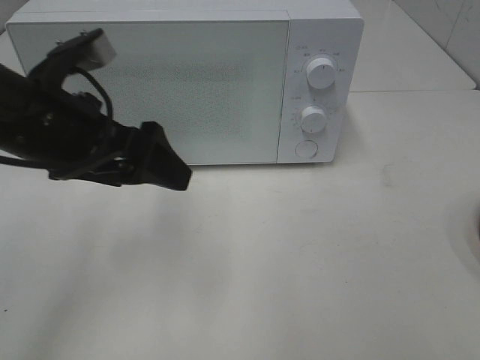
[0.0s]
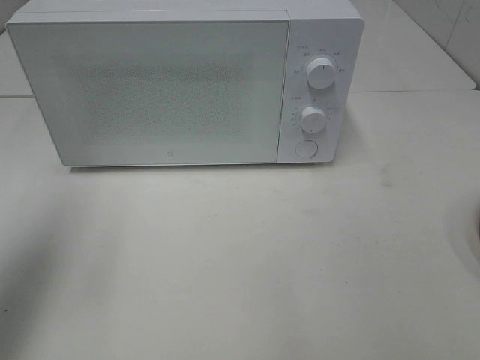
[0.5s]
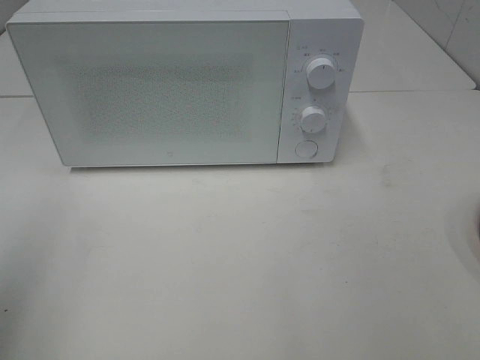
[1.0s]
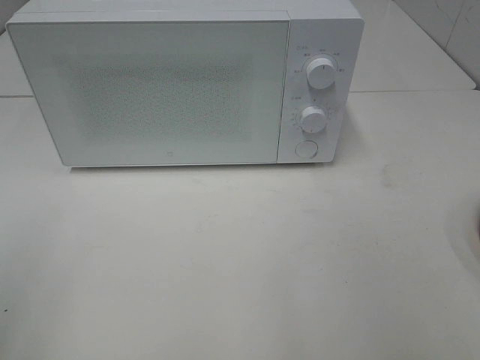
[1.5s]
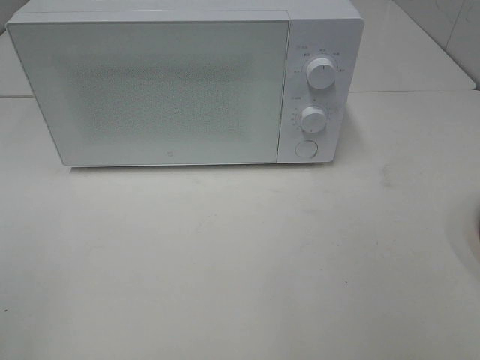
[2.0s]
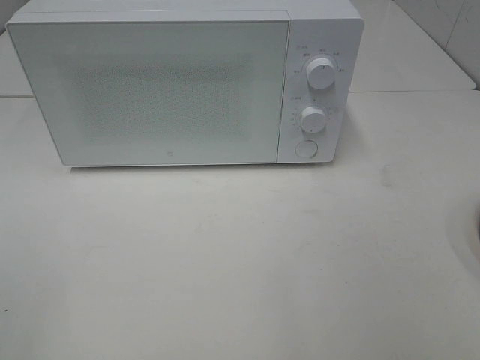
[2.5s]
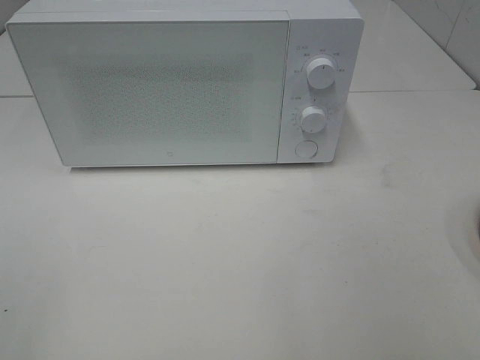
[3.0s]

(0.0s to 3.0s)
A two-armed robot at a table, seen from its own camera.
Task of the whole recording: Heat the burger.
0.0s - 1.5s: The left gripper moves backward and to the left, roughly 25 cm.

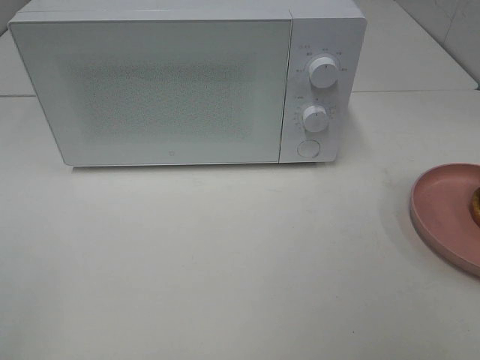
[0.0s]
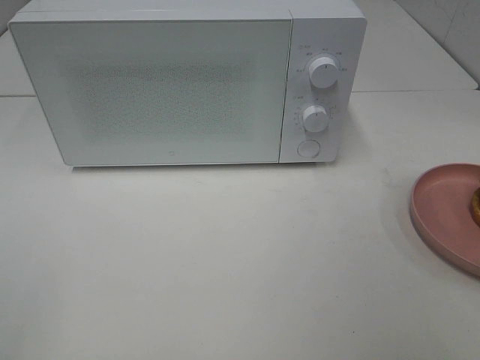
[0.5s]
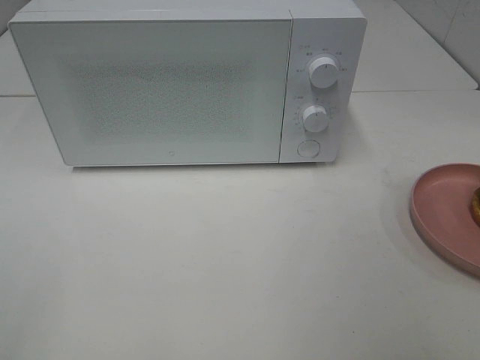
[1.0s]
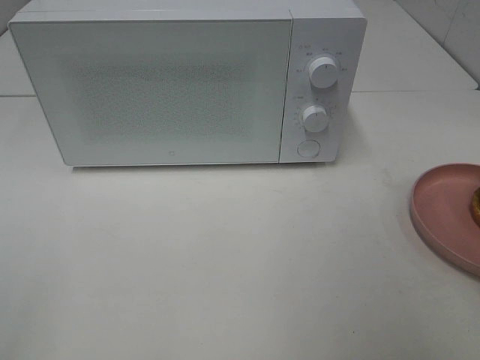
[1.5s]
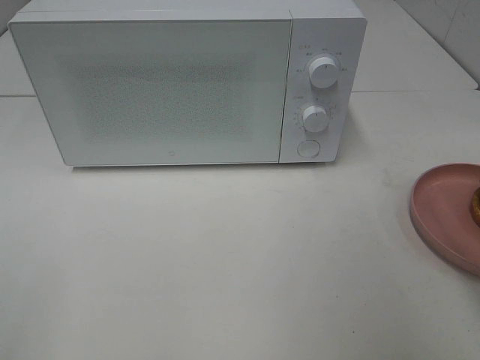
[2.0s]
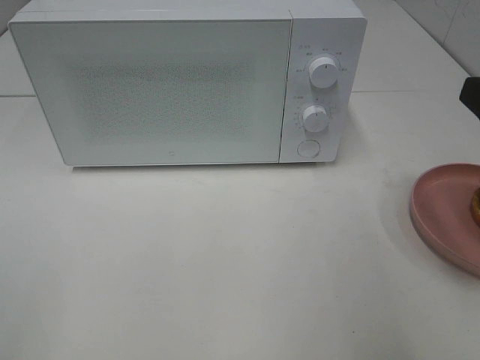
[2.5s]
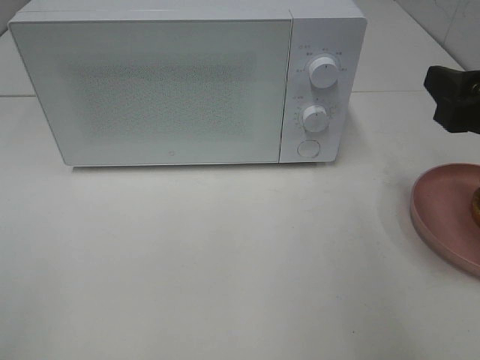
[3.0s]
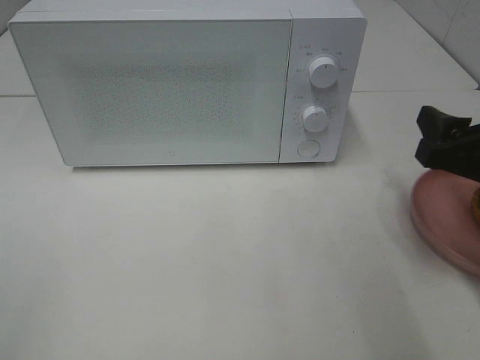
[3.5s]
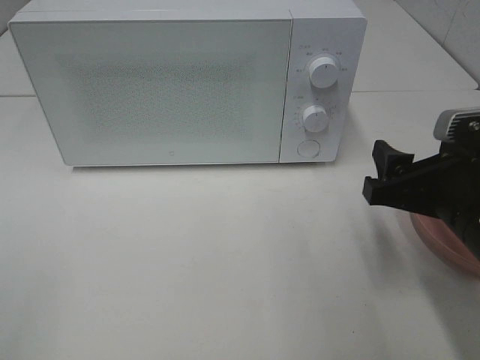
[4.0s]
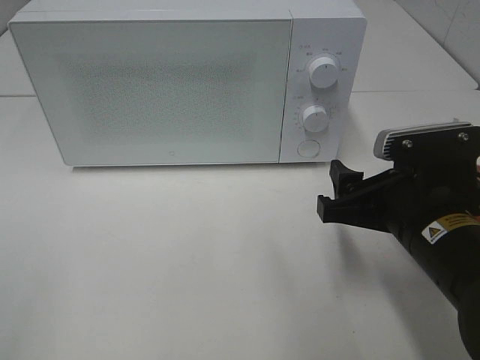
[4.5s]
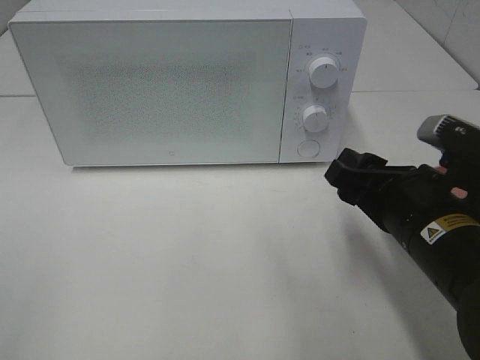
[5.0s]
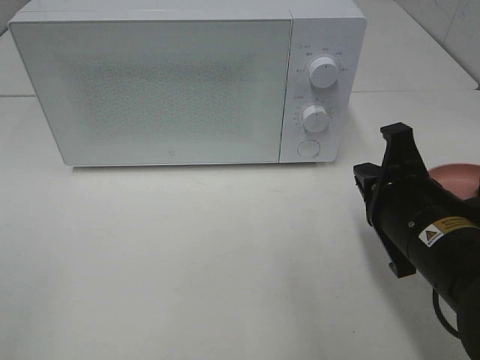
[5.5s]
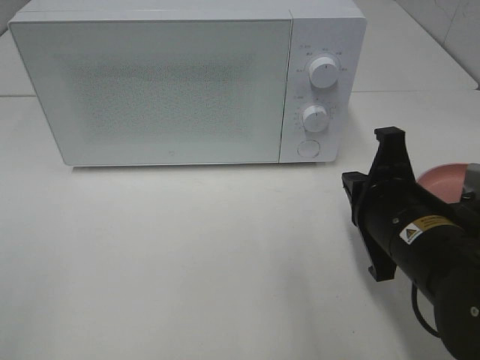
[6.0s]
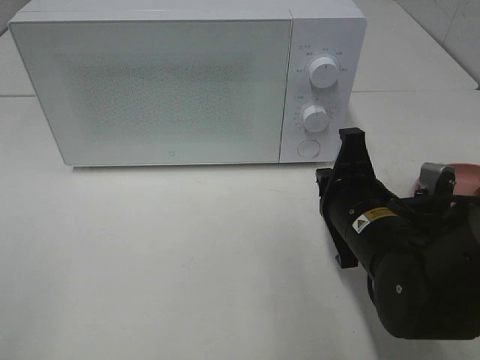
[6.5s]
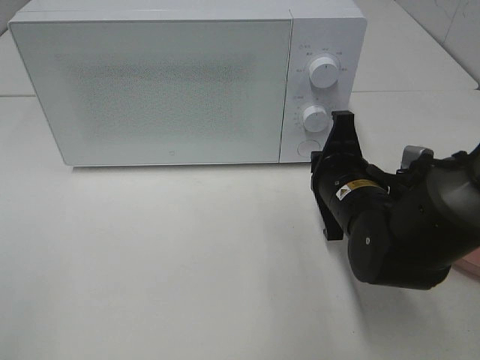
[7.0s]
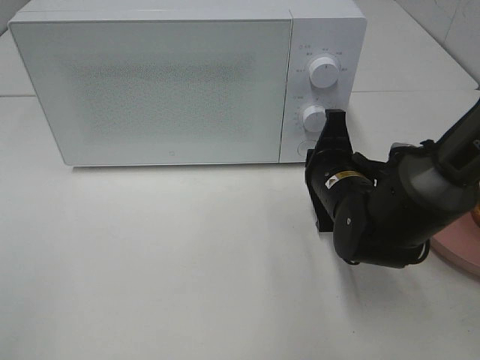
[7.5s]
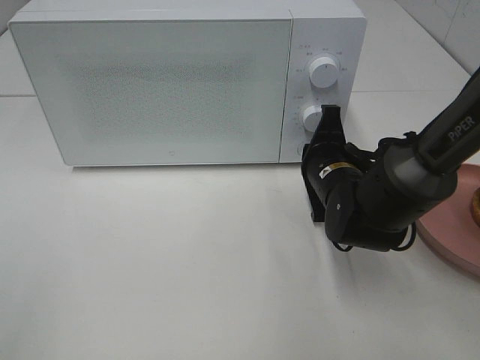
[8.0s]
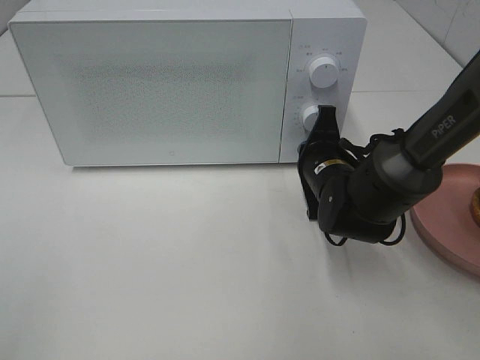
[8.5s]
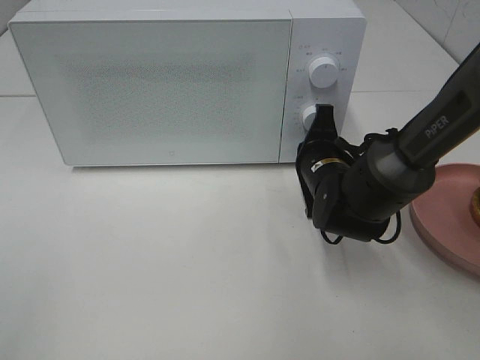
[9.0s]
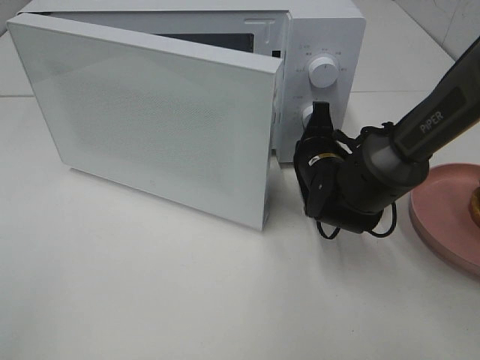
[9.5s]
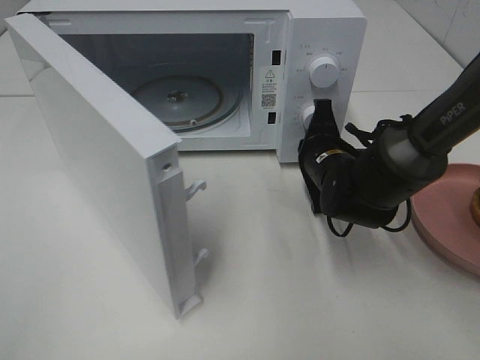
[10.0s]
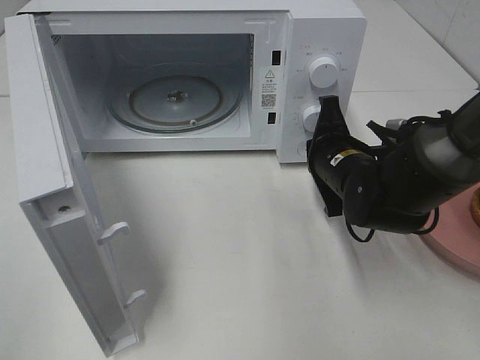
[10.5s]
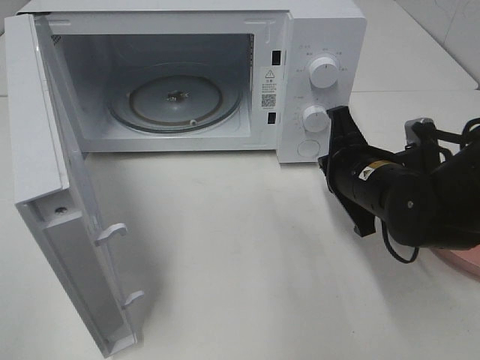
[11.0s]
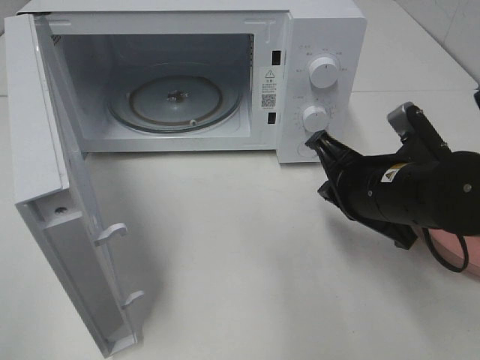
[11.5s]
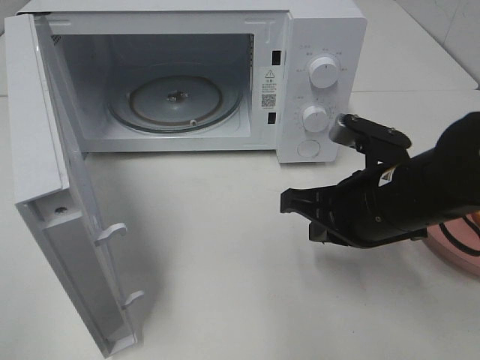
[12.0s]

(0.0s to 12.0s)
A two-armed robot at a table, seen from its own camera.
Task of the whole recording: Heat the burger.
Step, 0.0s - 10.0s: Right hand: press the switch.
2.0s - 4.0s: The right gripper travels downward, forward and to the left by approximately 15 cm.
4.0s - 6.0s: The right gripper shifts about 5 cm to the left, and closes up.
6.0s - 8.0s: The right gripper goes about 15 cm forward and downward.
10.0s - 12.0s: The right gripper shifts approximately 15 cm backward and upward.

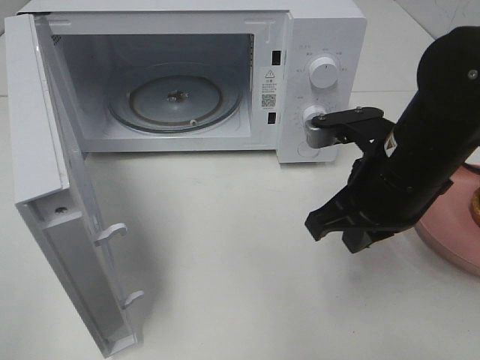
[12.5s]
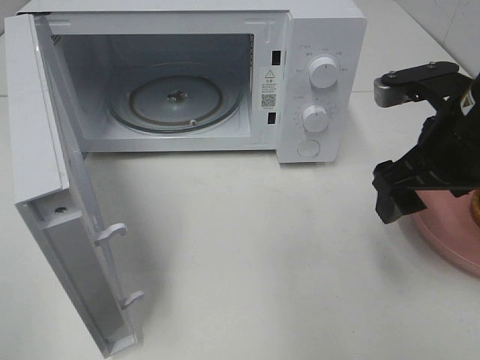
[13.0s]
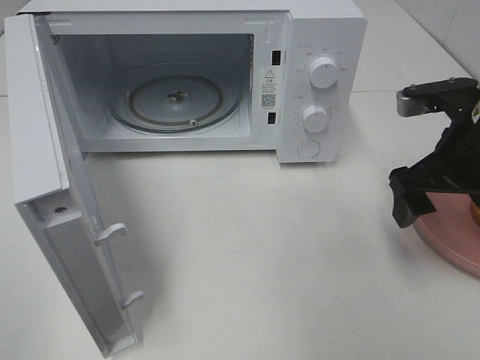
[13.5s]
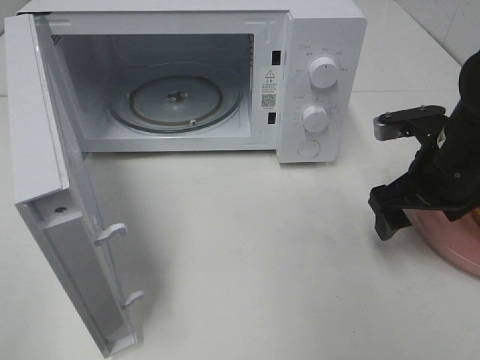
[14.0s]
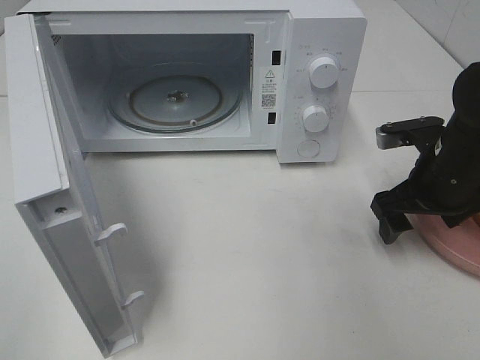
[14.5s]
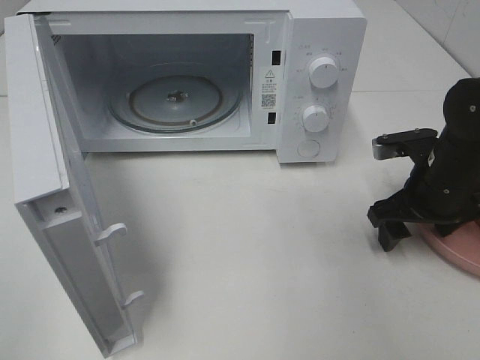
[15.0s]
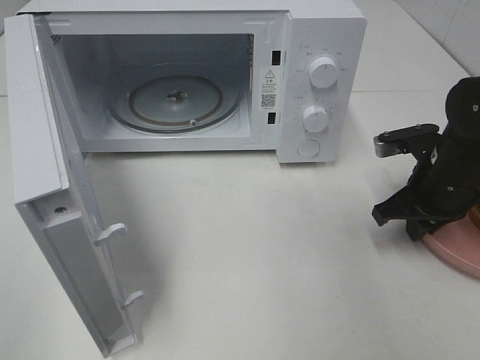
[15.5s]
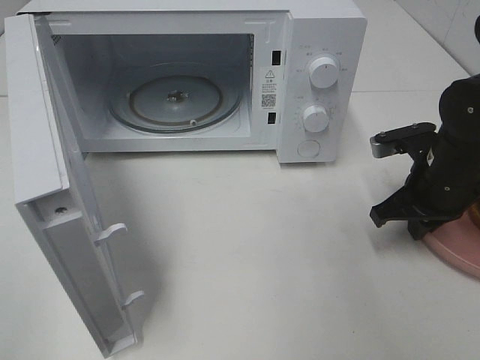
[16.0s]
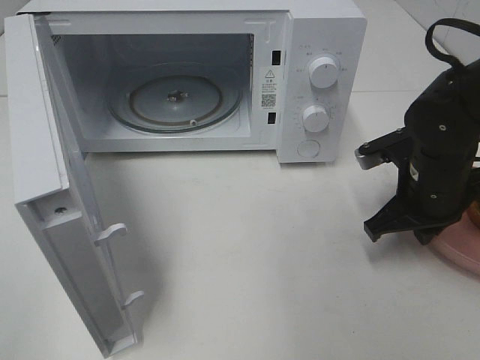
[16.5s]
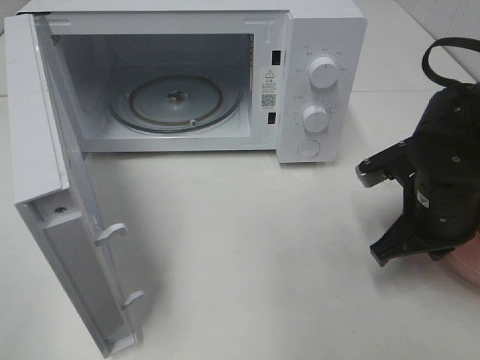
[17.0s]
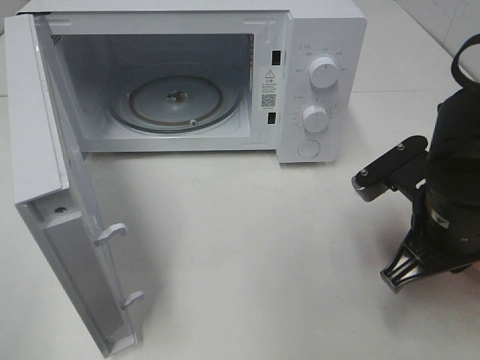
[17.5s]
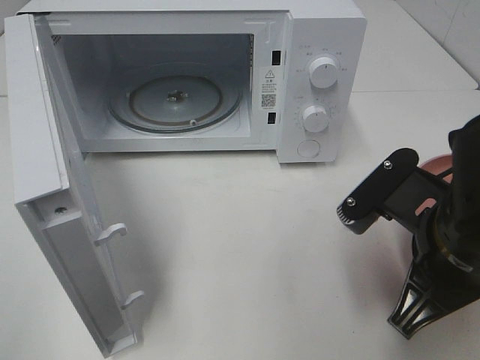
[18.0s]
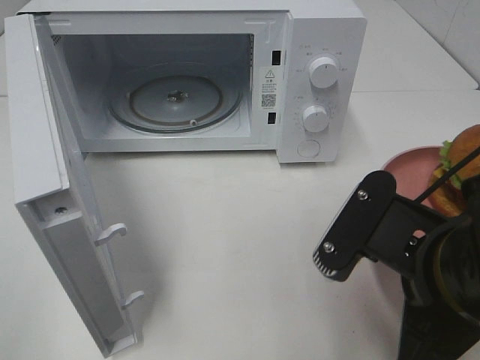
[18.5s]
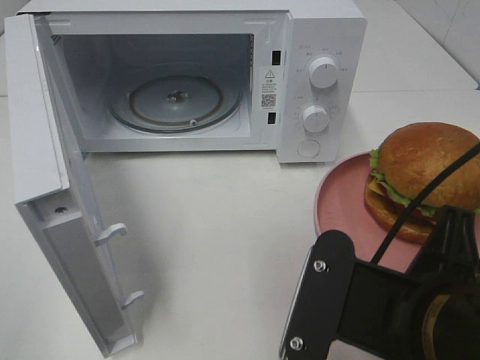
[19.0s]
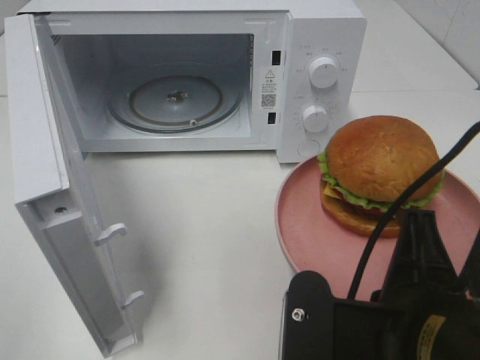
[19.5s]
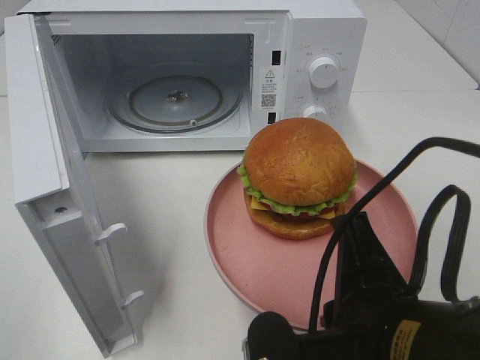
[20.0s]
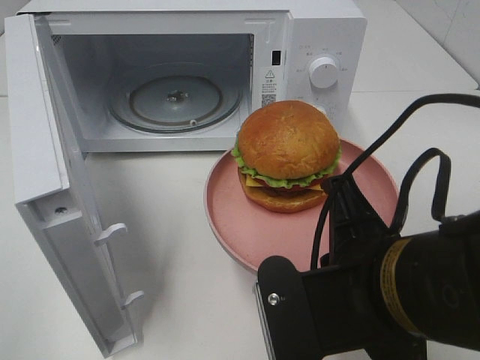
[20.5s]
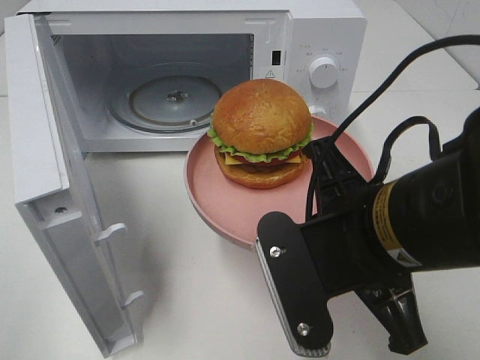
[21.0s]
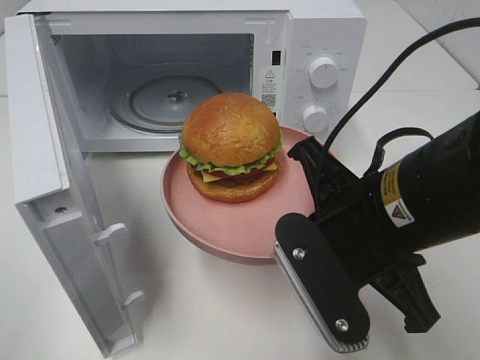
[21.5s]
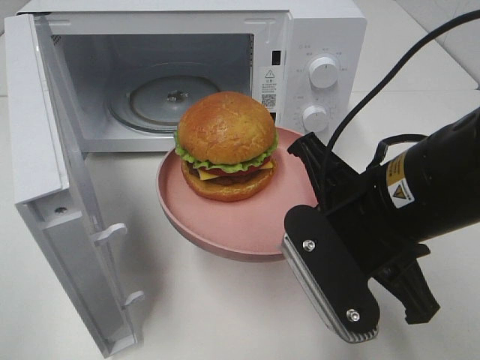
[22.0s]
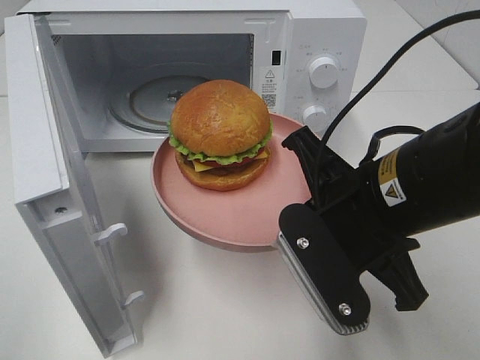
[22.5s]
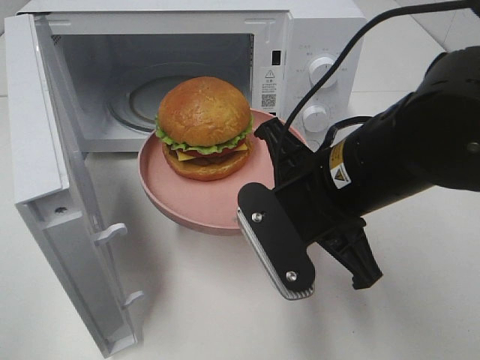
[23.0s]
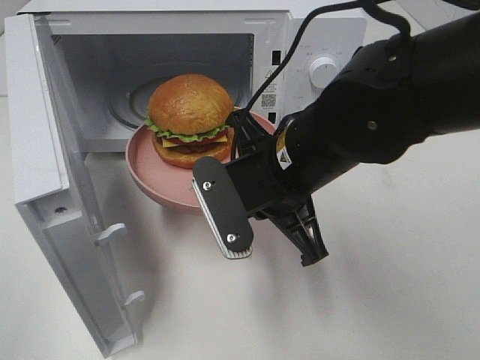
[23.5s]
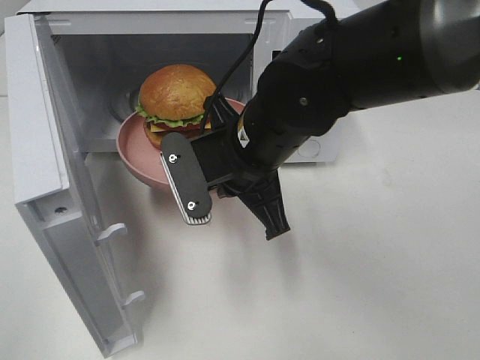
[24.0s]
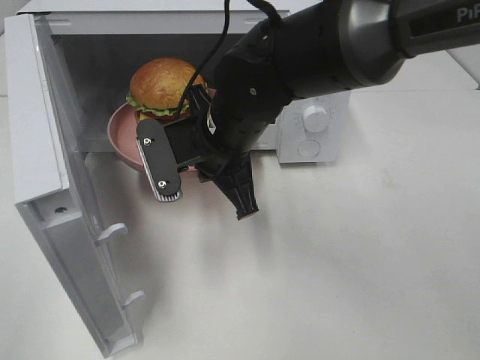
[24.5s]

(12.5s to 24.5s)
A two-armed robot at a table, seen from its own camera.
Task of the whole recording: Heat the burger.
Step, 12.5s - 15.5s: Right hand: grab the plate with the hamburger.
12.5s - 14.5s: The right gripper is displaced to the right, forward and downward by some 15 cm, and opens.
14.5s - 16.5s: The right gripper closes its fingers.
16.5s - 18.5s: The right gripper heads backward, to the left and upward, covering about 20 cm.
20.5s - 22.5s: The right gripper shifts about 5 cm forward.
22.5s - 24.5s: The right gripper travels forward and to the left by about 15 cm.
